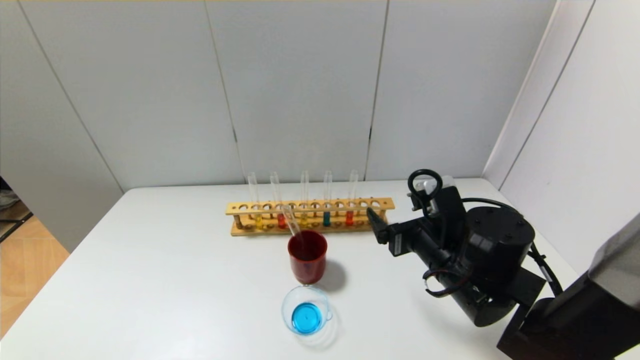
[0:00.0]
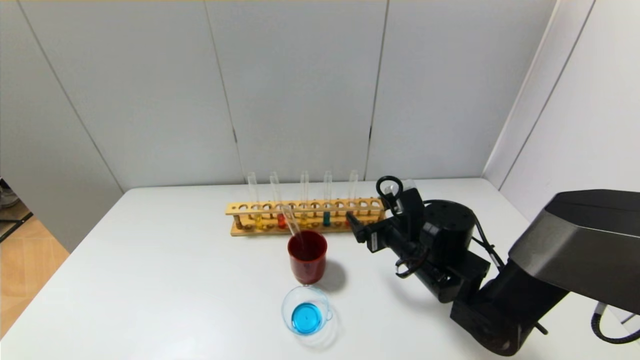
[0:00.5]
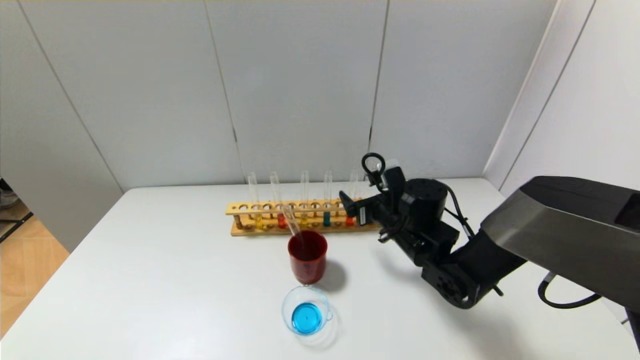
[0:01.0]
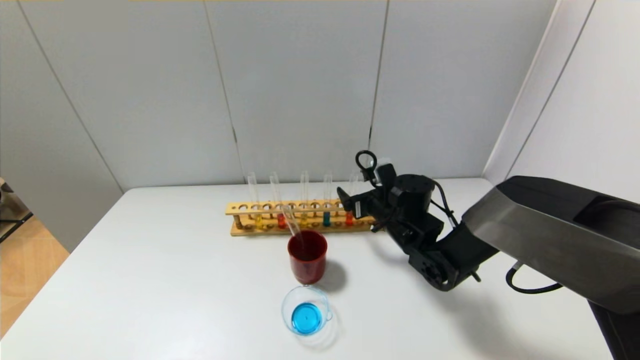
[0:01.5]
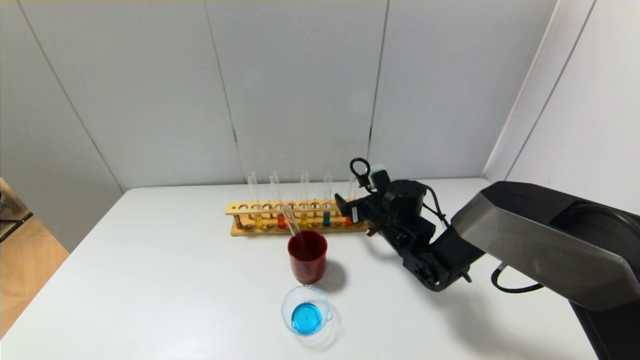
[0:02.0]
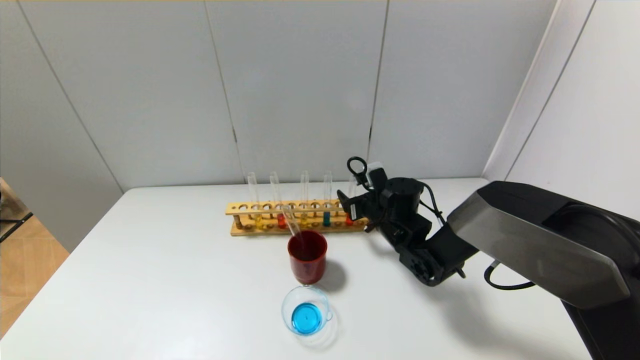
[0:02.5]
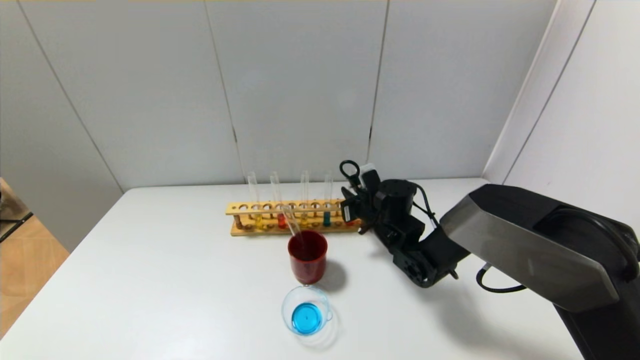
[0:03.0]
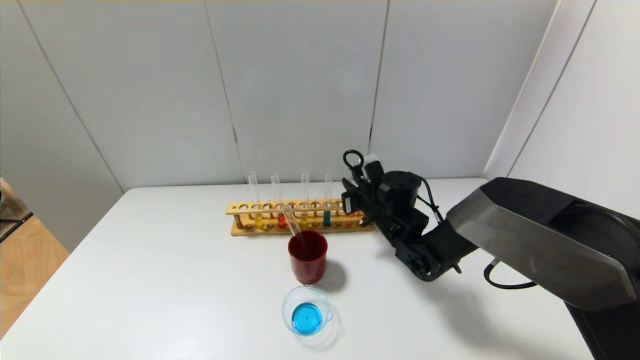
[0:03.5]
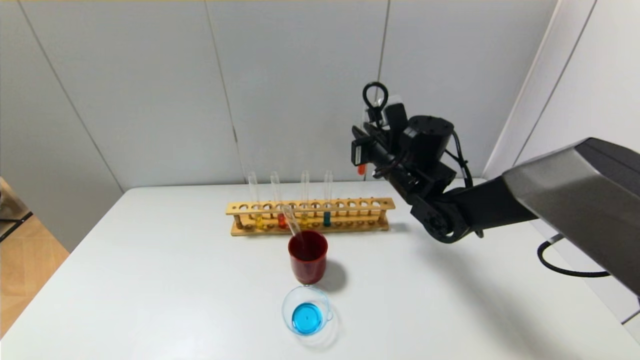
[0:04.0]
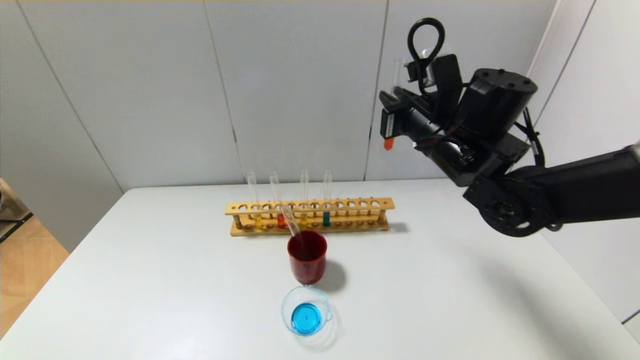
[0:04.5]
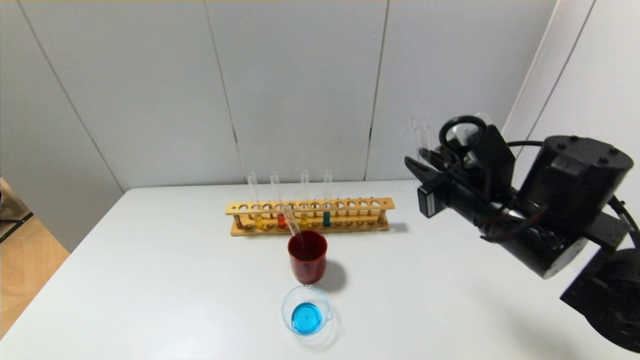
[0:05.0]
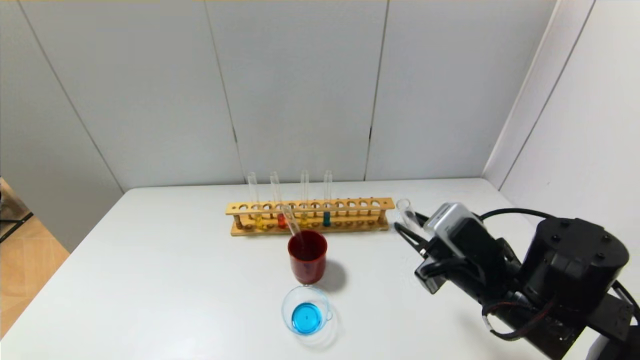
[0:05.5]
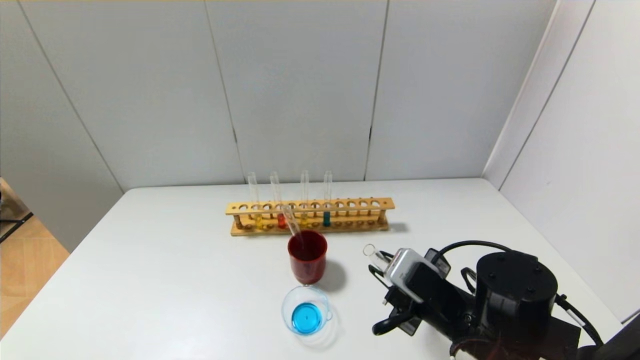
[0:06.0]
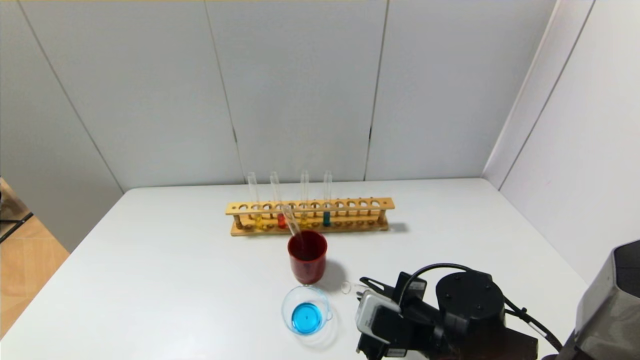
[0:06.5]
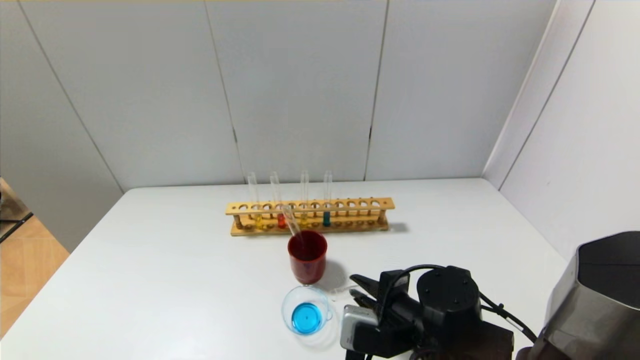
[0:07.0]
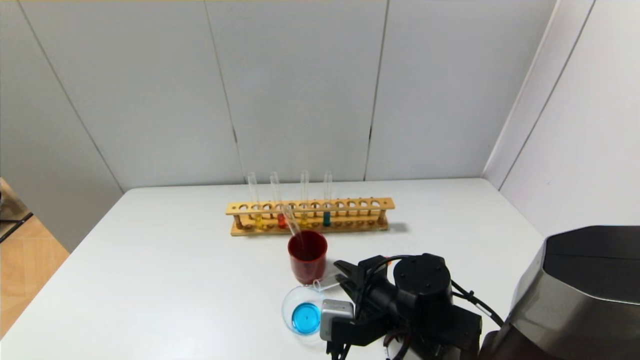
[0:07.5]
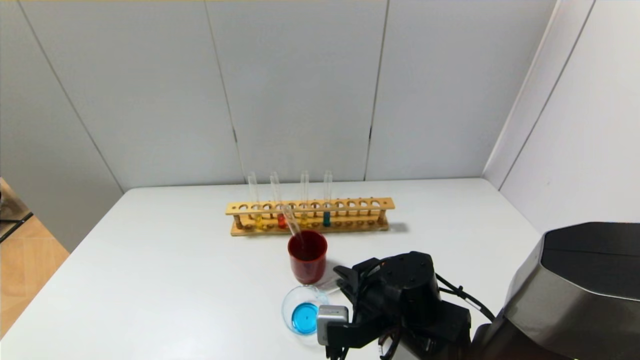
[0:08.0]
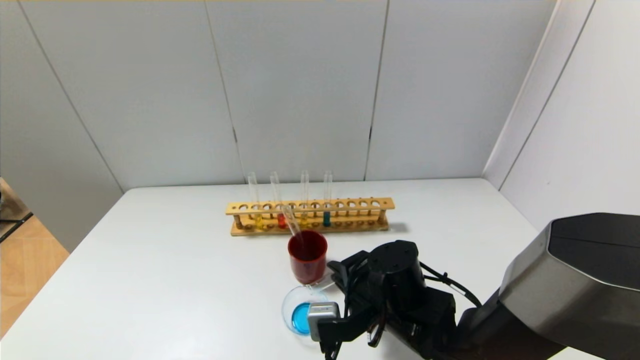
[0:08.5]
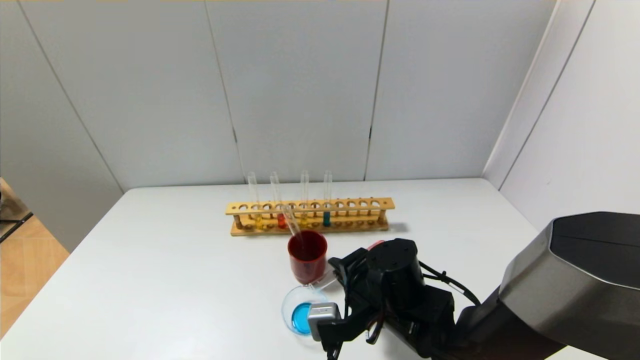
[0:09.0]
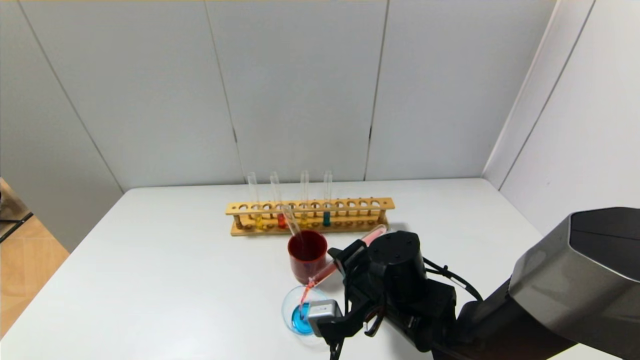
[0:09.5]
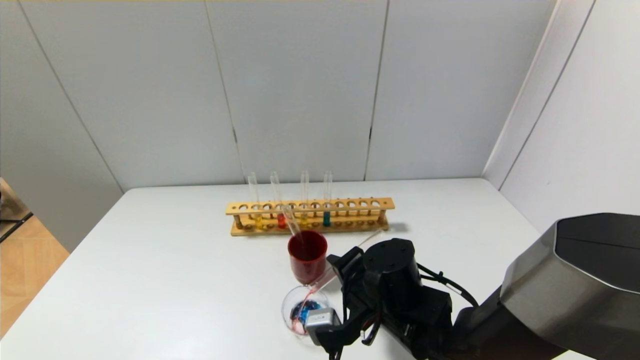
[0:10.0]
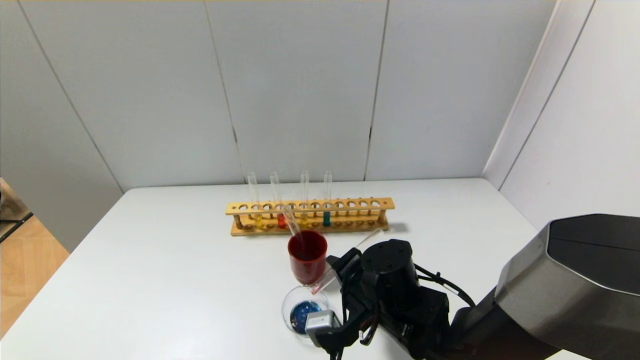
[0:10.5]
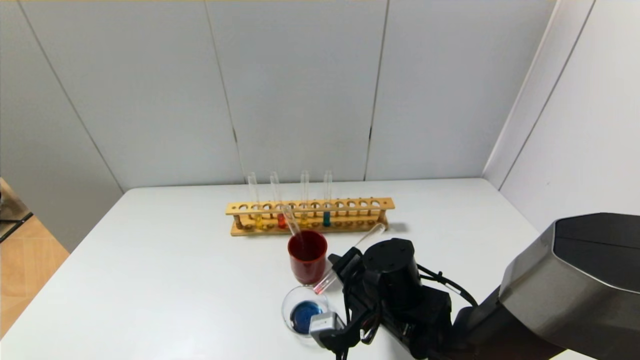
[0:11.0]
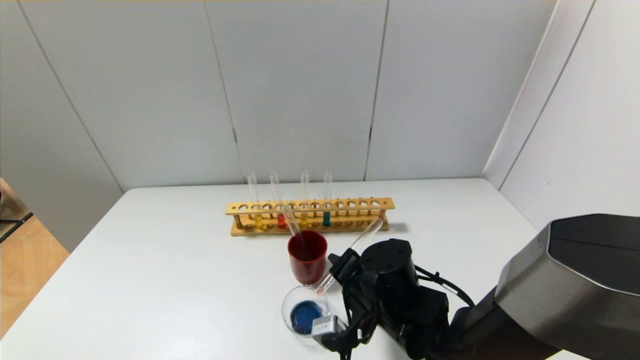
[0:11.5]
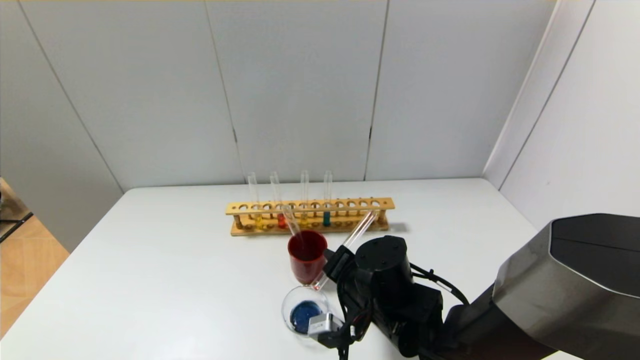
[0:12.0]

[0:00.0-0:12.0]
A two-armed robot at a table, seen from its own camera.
Step, 0:00.0 to 0:03.0: Grasp the red reagent with the right gripper.
0:00.0 to 0:02.0: The right gripper moves forward and downward, about 15 cm.
0:02.0 to 0:04.0: The right gripper goes about 10 cm upward, and closes up.
0:04.0 to 0:06.0: The right gripper shifts approximately 20 cm backward and downward.
0:06.0 to 0:08.0: The right gripper shifts roughly 5 cm to the left.

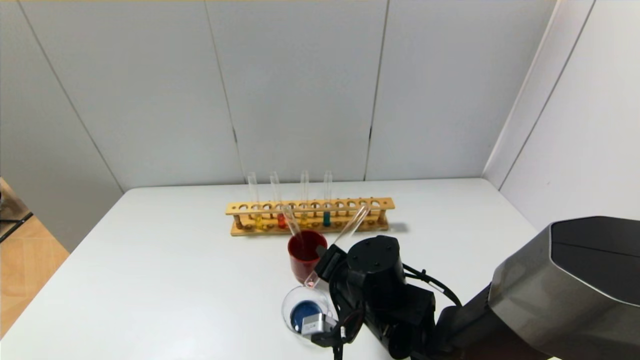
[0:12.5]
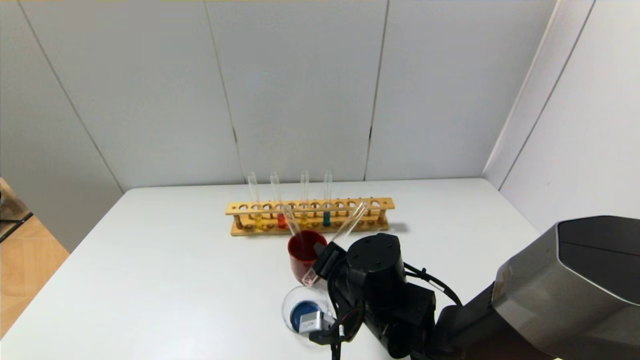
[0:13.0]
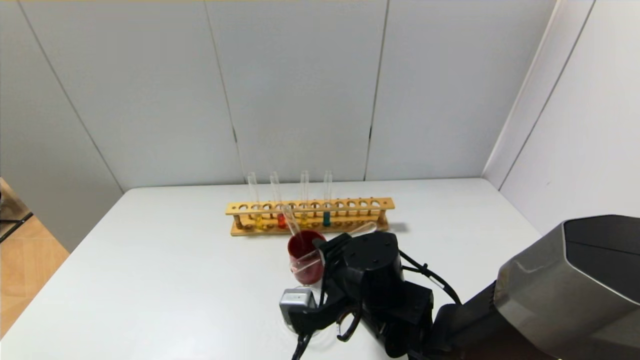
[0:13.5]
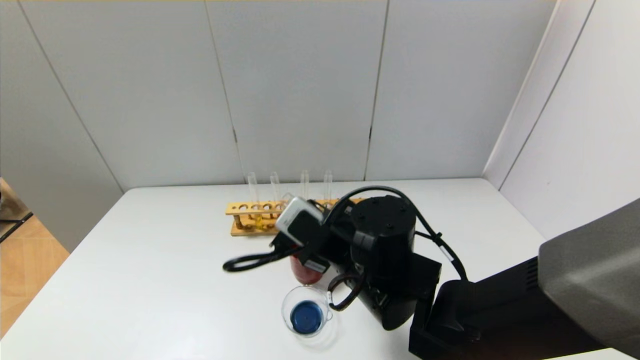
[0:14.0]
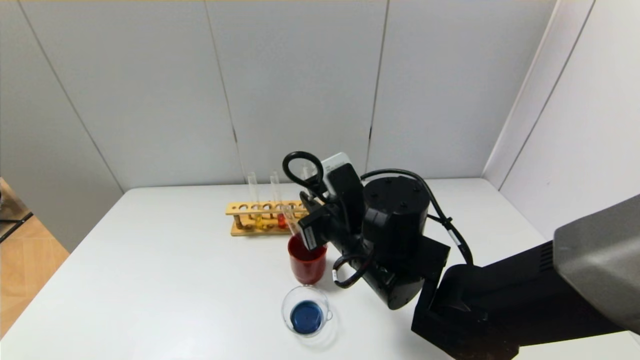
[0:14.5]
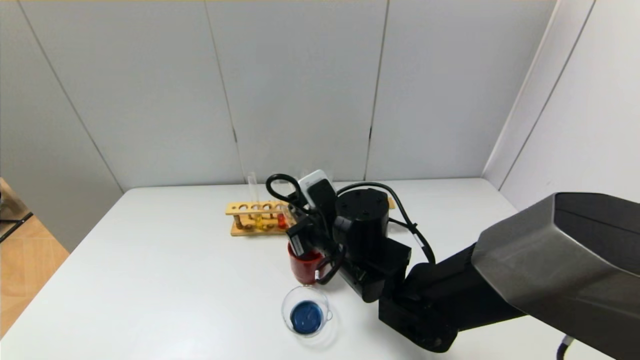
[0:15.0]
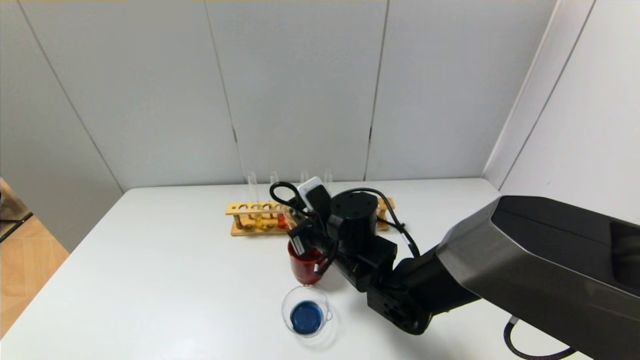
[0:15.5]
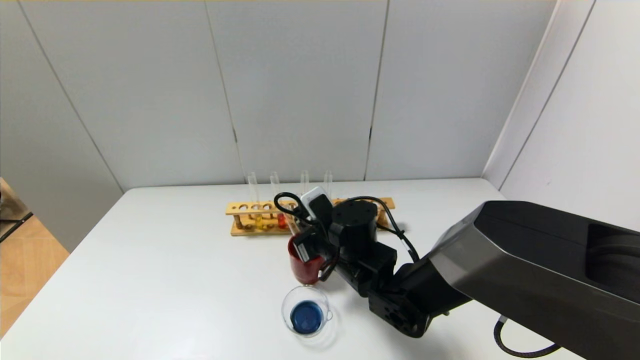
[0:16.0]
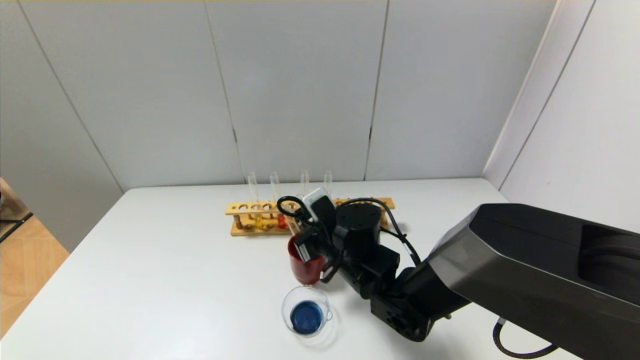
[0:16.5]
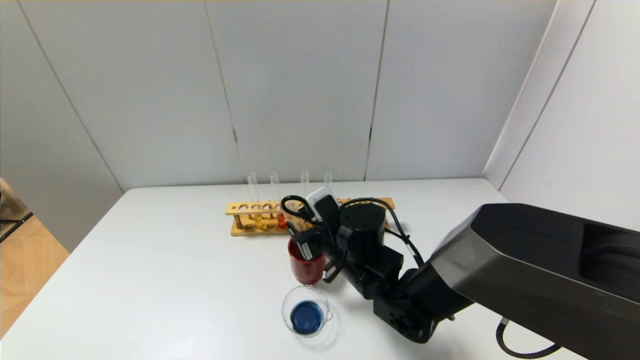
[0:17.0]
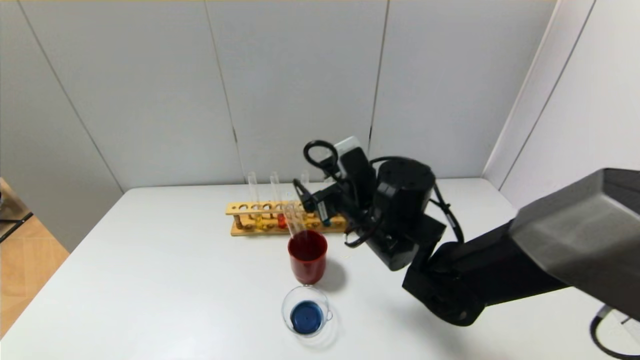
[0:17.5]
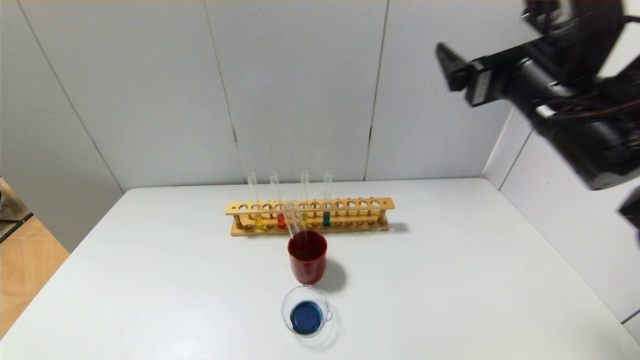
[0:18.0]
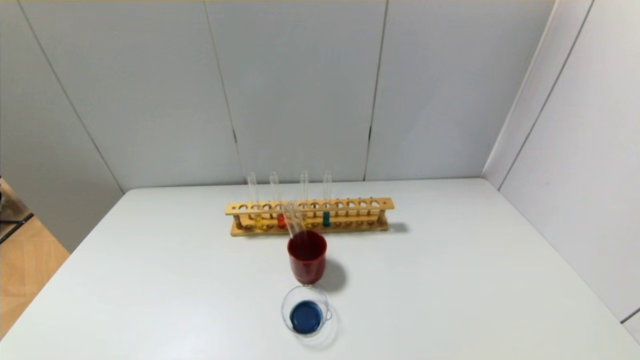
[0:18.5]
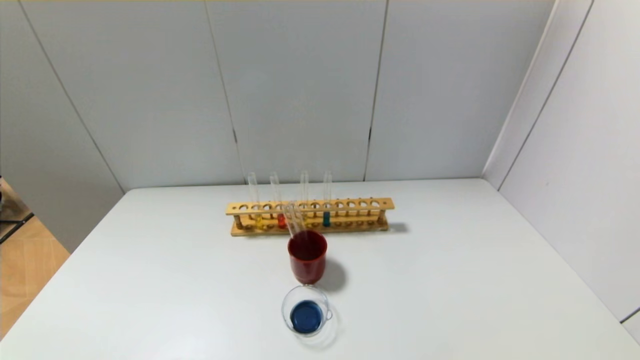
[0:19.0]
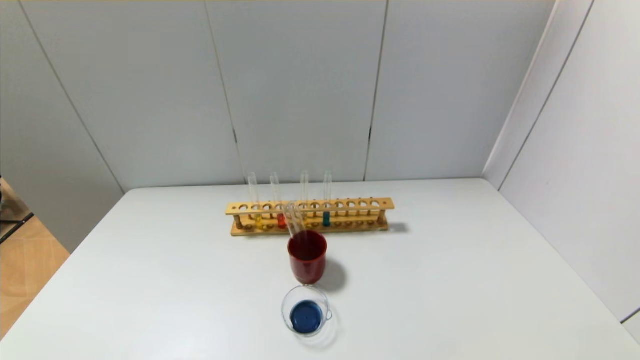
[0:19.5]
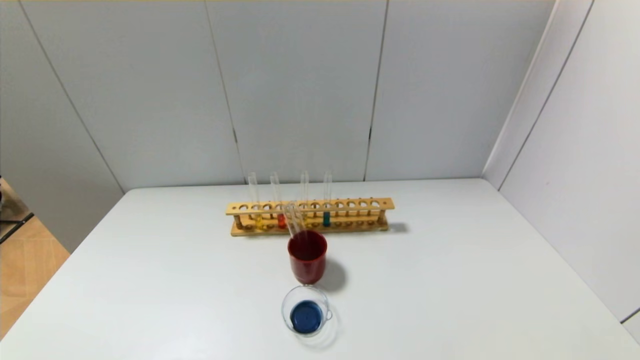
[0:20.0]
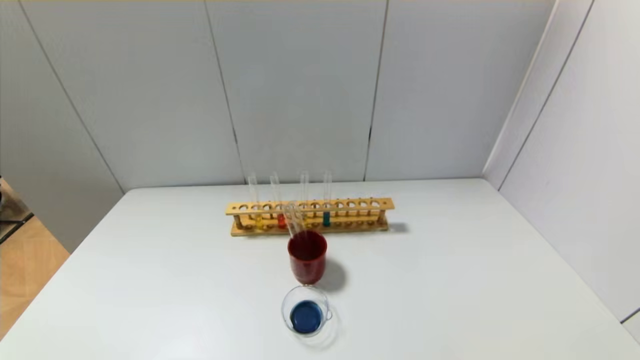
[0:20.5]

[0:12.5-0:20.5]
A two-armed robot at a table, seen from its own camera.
Step, 0:14.0 to 0:17.0: Place the test tube into the brown cup with the right gripper.
0:12.5 to 0:14.5: The right gripper shifts roughly 10 cm upward.
0:14.5 to 0:16.5: The right gripper heads downward and forward, covering approximately 10 cm.
0:16.5 to 0:18.5: The right gripper goes approximately 50 cm to the right, upward and backward, and opens its fingers.
